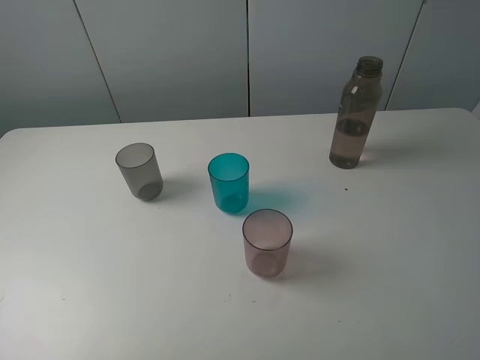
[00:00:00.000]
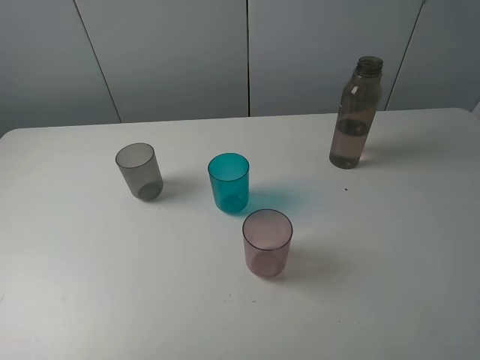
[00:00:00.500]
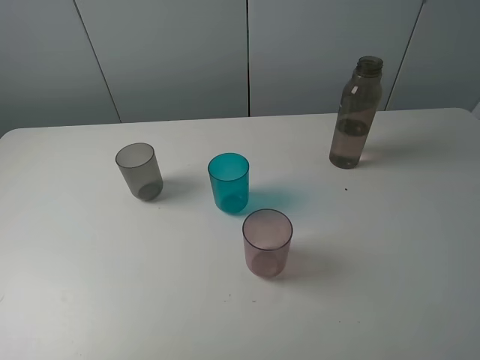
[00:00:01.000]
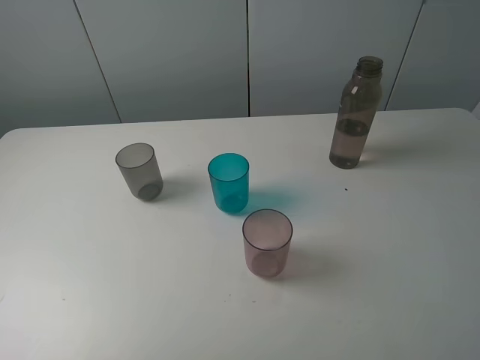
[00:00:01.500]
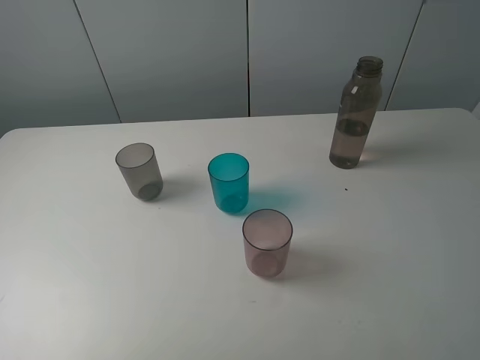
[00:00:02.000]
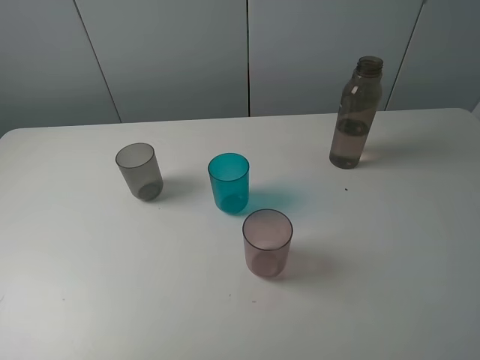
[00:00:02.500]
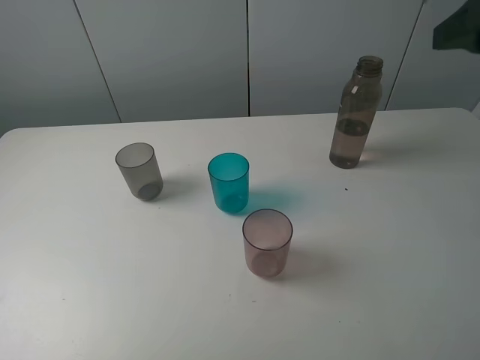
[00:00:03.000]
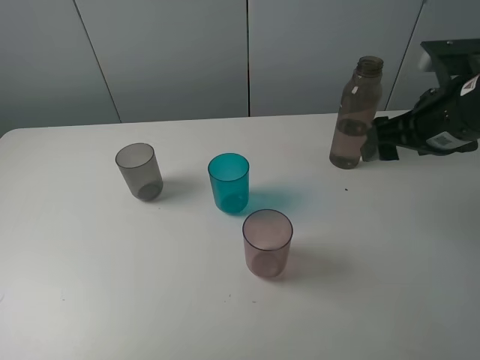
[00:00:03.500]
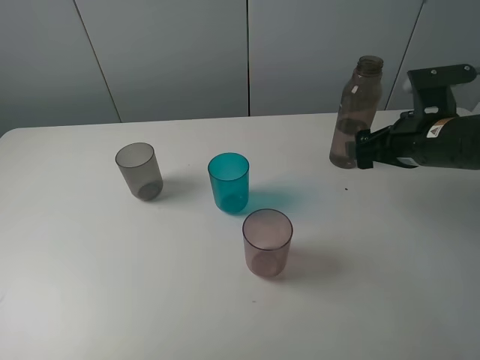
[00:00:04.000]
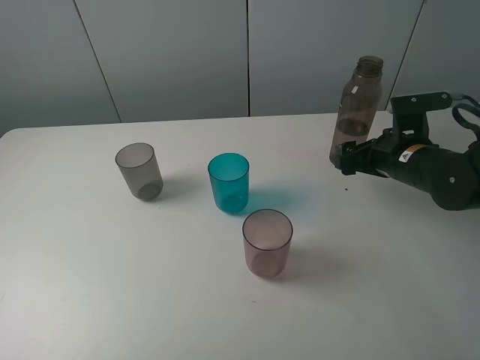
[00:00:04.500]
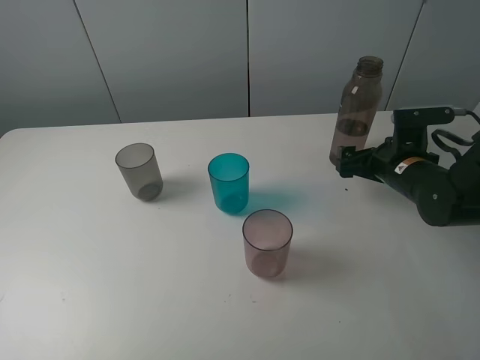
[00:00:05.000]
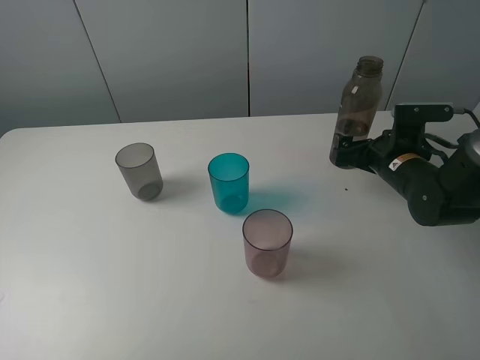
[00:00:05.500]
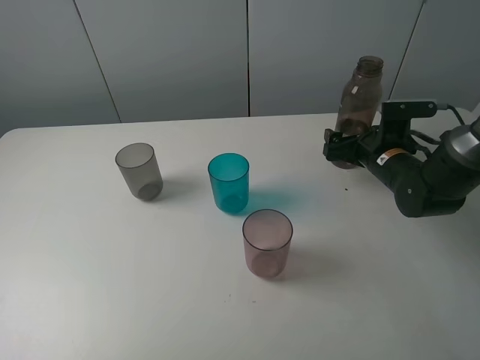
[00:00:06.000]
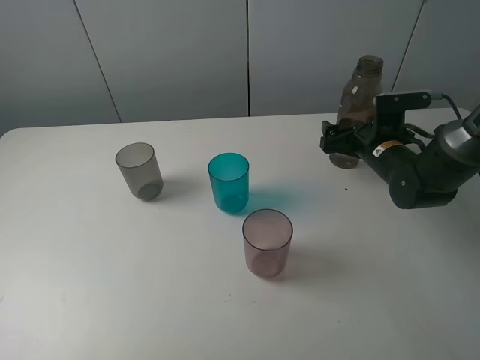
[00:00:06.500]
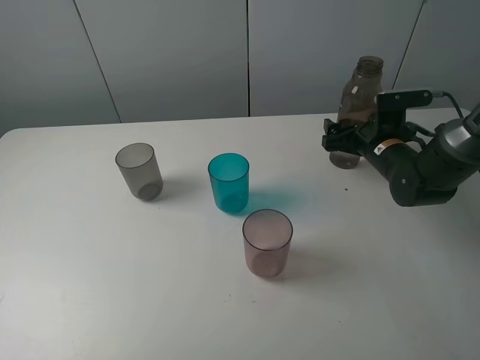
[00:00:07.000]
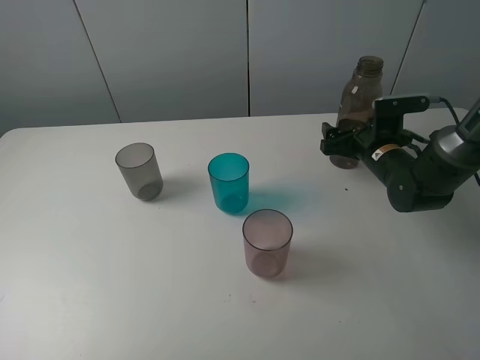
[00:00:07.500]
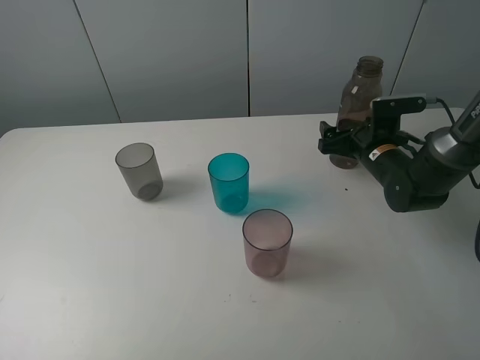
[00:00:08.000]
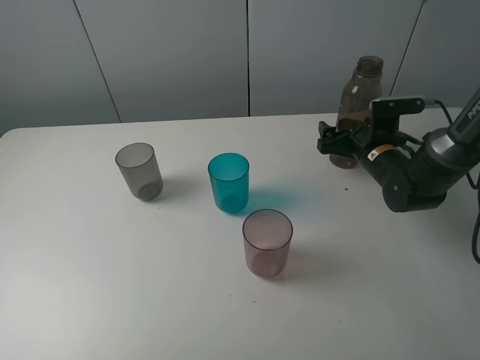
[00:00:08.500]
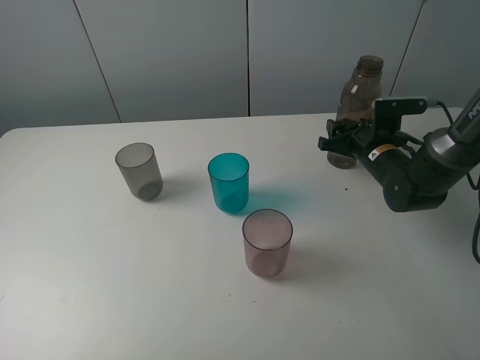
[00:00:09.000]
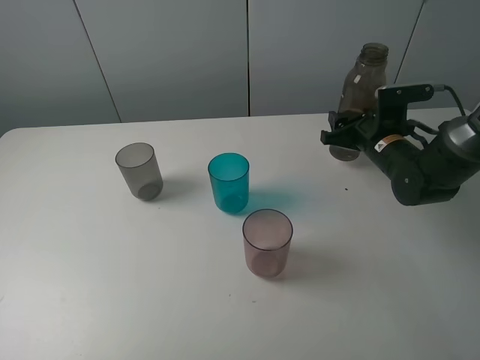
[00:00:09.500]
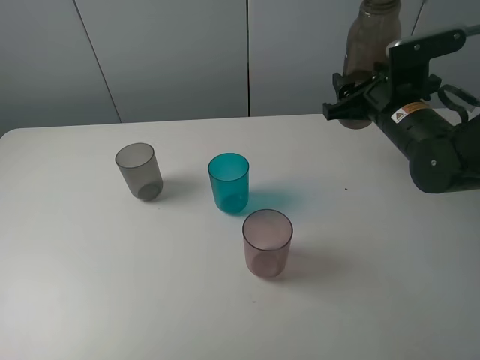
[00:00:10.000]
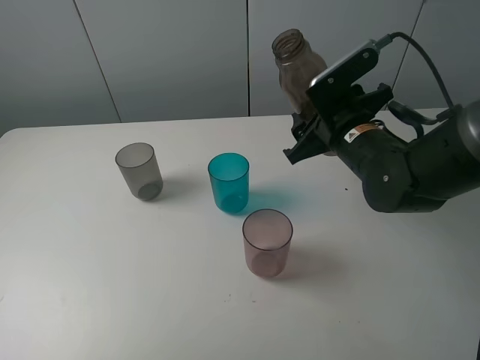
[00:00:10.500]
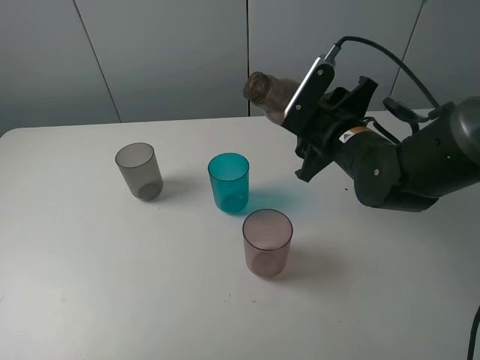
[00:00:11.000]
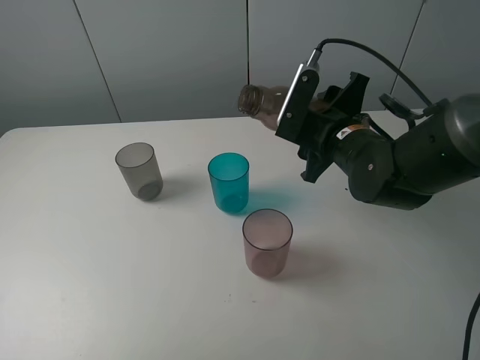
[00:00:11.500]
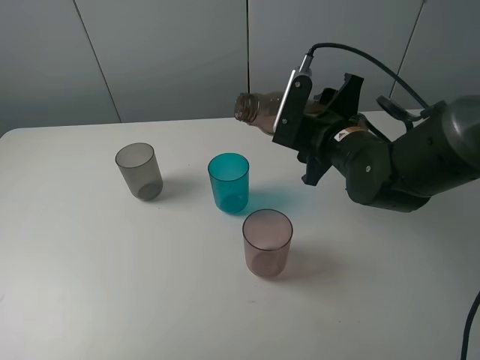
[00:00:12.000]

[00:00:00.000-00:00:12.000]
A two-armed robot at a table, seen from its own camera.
Task of the whole recording: pick up the bottle filled with water and pour water into the middle cup of the three cups.
Step, 00:00:00.000 to 00:00:09.000: Grasp the brown bottle with the right gripper.
00:00:00.000 to 00:00:02.000: Both grippers stay about where they are.
00:00:02.000 to 00:00:04.000: The right gripper moves forward and downward, about 30 cm.
00:00:04.000 to 00:00:06.000: The right gripper shifts roughly 10 cm downward and forward.
00:00:06.000 to 00:00:08.000: The grippers make only small movements.
00:00:08.000 to 00:00:10.000: The right gripper travels upward by about 10 cm, and closes its fingers.
00:00:10.000 to 00:00:12.000: The right gripper goes roughly 5 cm to the left.

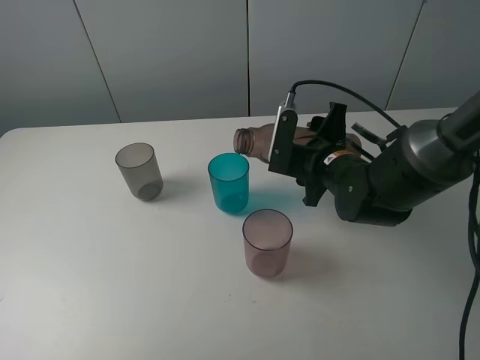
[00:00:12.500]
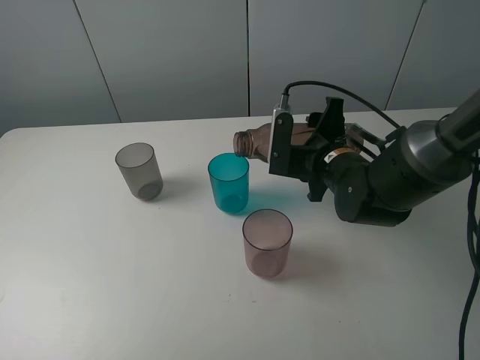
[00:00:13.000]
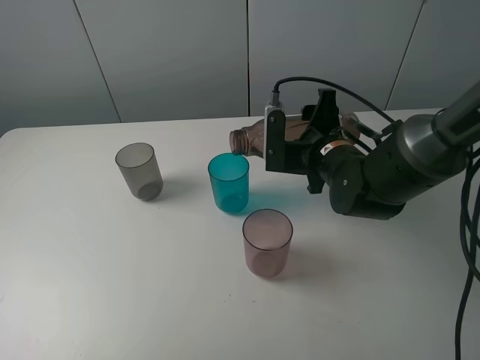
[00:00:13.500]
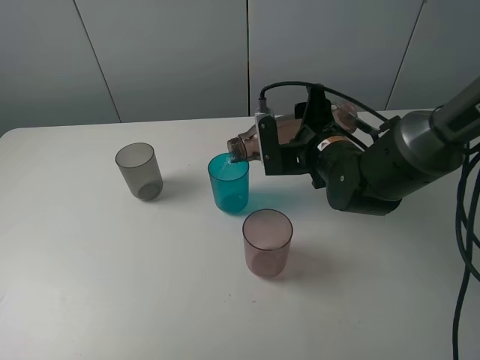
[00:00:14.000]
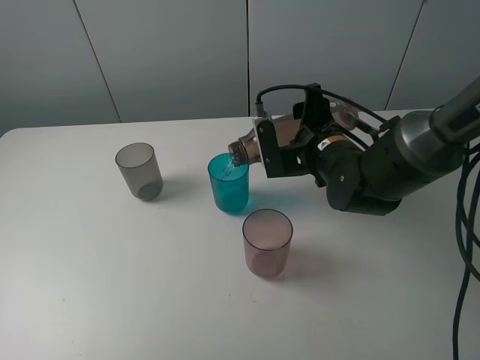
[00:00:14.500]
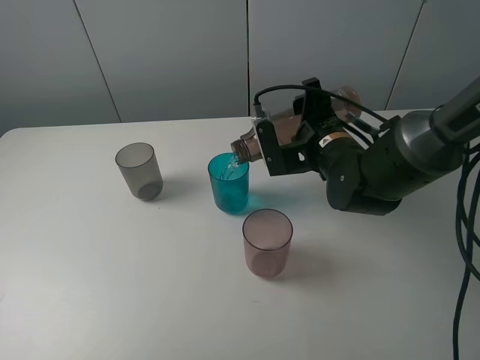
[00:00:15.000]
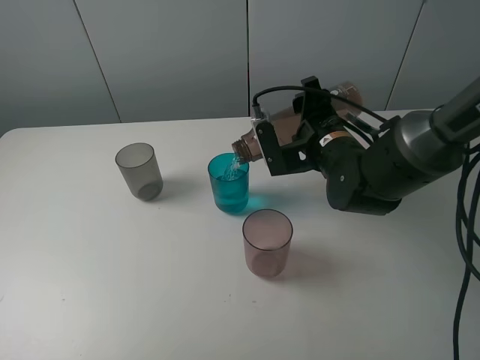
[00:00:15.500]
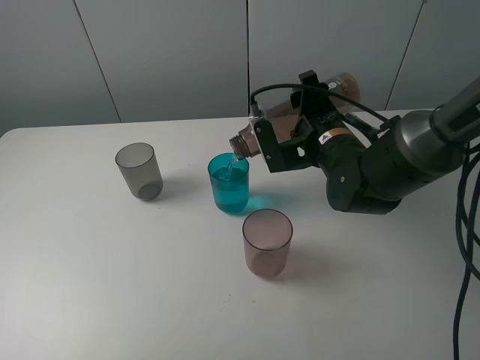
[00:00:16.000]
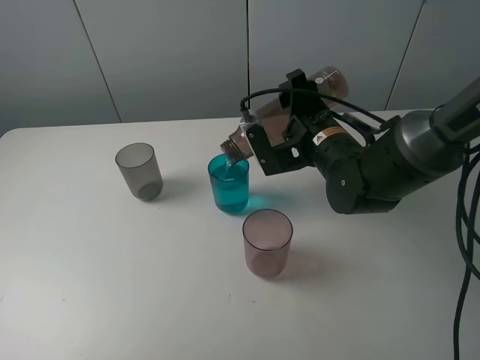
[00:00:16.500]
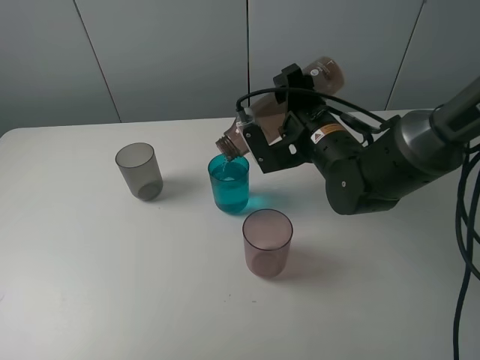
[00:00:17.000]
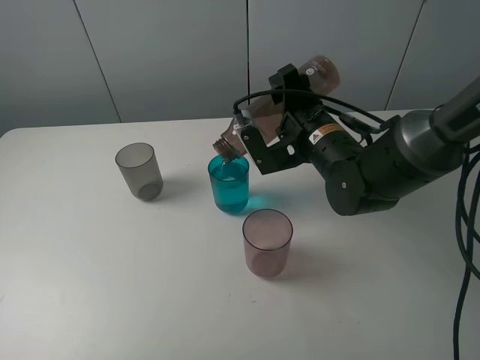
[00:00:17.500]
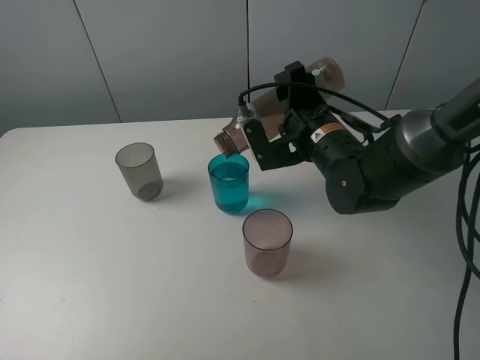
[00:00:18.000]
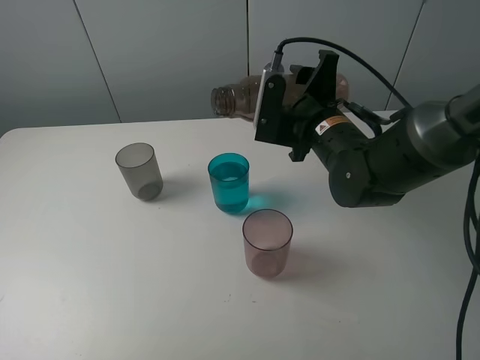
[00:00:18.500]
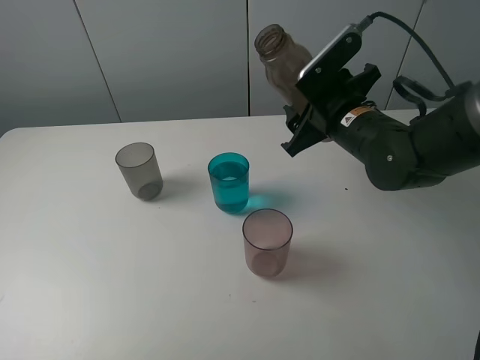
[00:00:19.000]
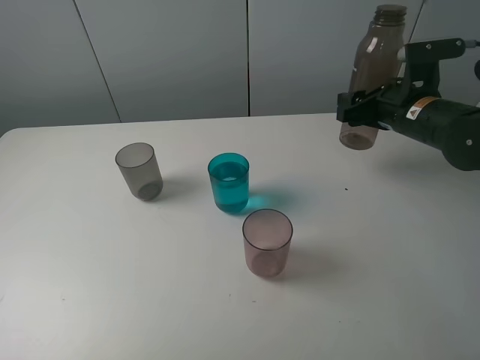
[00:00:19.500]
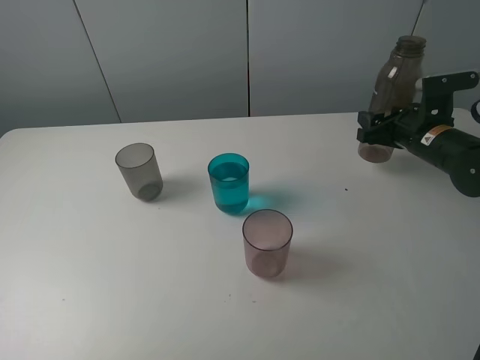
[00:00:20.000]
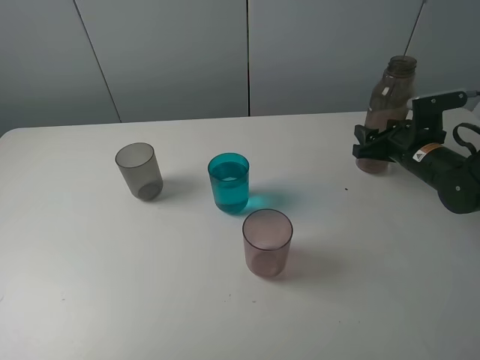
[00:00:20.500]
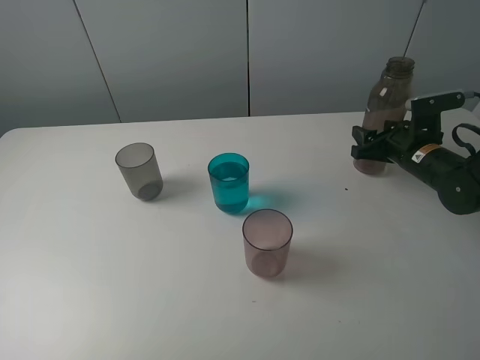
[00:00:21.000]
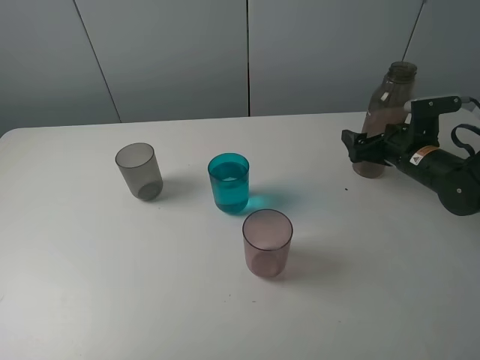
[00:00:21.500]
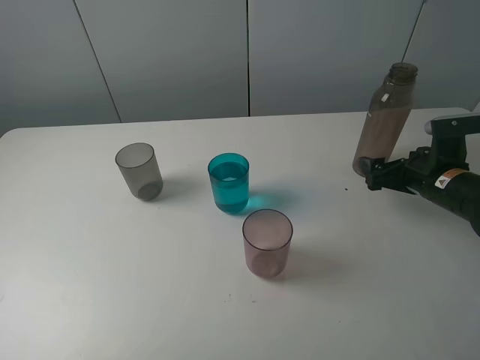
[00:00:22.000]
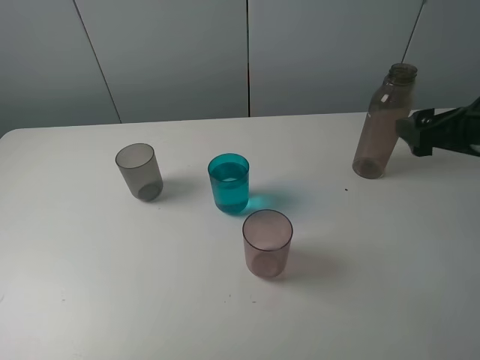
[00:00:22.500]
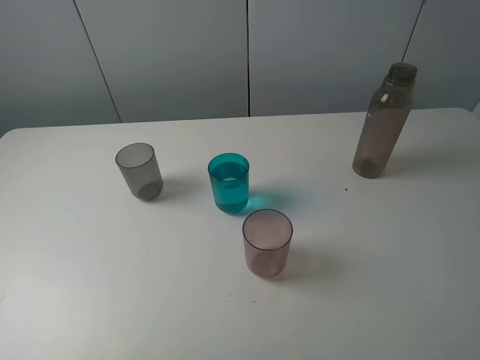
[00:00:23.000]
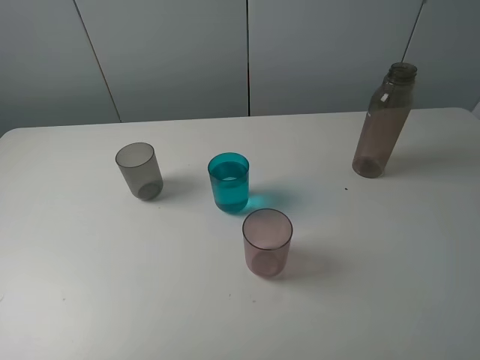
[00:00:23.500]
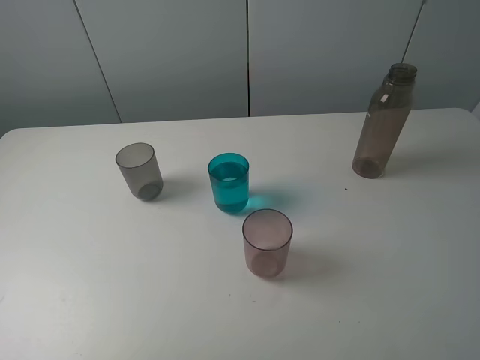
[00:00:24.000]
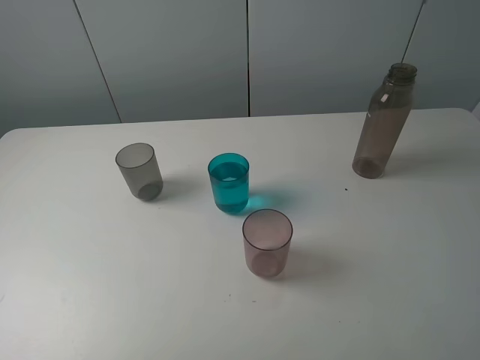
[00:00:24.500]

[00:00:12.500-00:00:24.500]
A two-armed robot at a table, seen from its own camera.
Task of the whole recording: pick up the bottle filled with water and pour water into the middle cup of the three cups.
Step, 00:00:12.500 to 00:00:18.500: Pour water from brown bottle to blue cup with the right gripper.
Step, 00:00:19.000 to 00:00:22.000: Place the brown bottle with the right gripper.
00:00:14.500 to 00:00:16.500: The grippers make only small movements.
00:00:18.500 to 00:00:20.500: The right gripper moves to the right and downward, about 20 cm.
00:00:20.500 to 00:00:22.500: The right gripper shifts some 20 cm upward and backward, and opens.
00:00:22.500 to 00:00:24.500: The right gripper heads backward, covering roughly 20 cm.

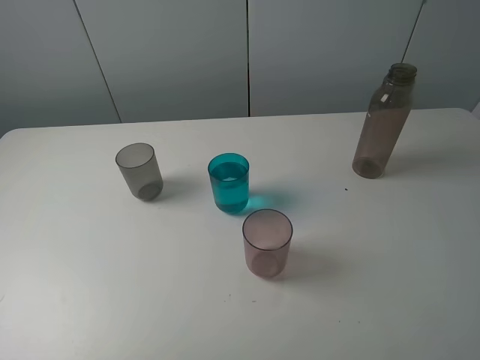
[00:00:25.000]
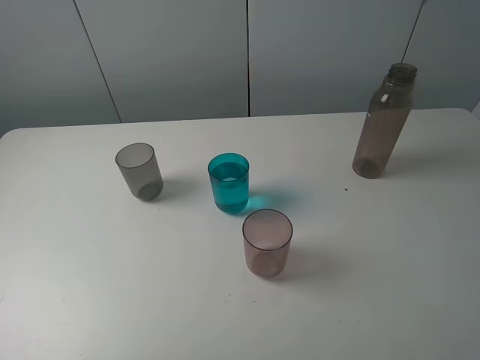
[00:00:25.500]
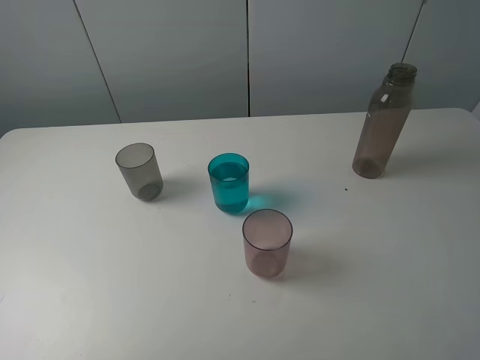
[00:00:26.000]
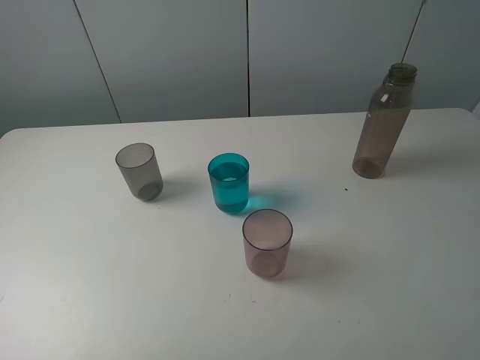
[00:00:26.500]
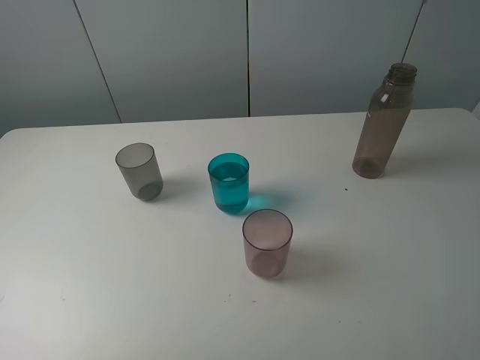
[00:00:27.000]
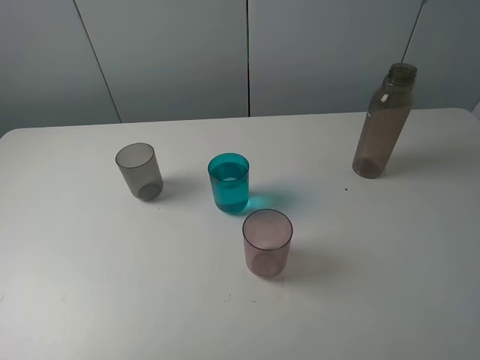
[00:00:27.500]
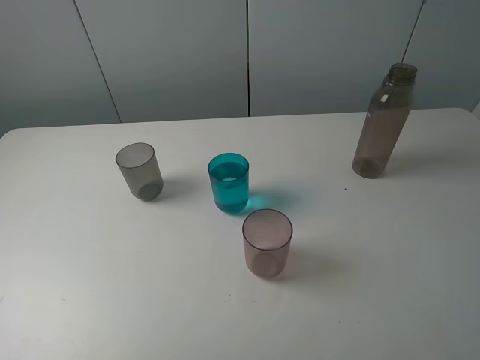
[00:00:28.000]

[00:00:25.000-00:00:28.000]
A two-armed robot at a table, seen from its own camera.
Task of the whole recording: pick up the bottle filled with water and pour water into the middle cup of the three cups.
00:00:25.000 to 00:00:28.000: Both grippers stay put.
